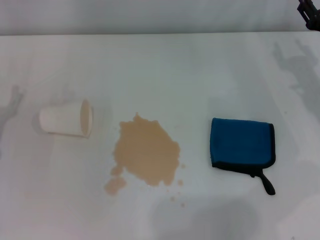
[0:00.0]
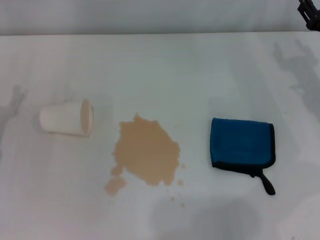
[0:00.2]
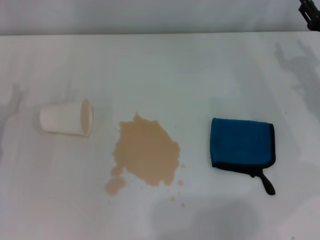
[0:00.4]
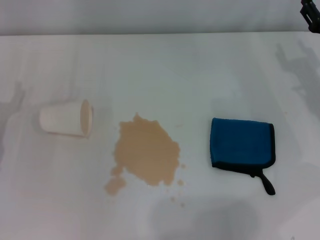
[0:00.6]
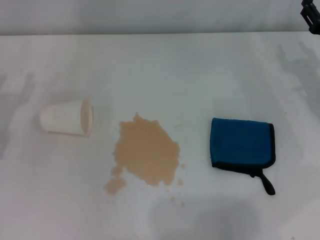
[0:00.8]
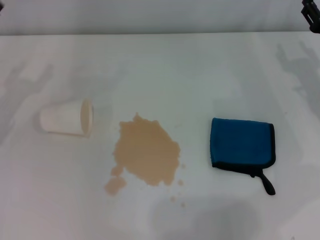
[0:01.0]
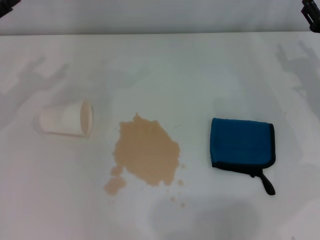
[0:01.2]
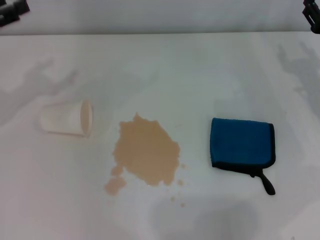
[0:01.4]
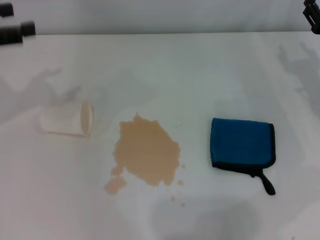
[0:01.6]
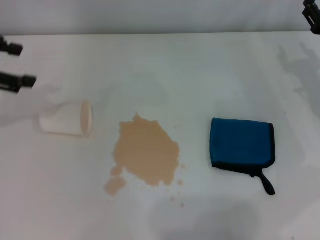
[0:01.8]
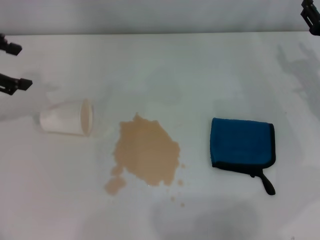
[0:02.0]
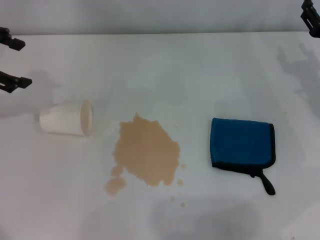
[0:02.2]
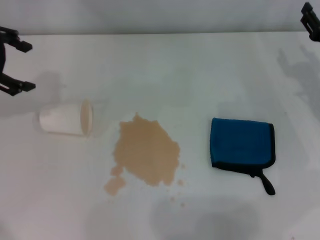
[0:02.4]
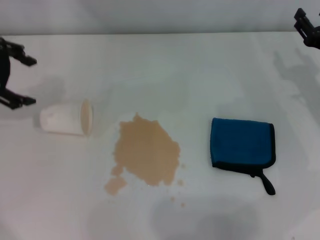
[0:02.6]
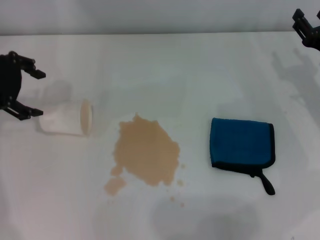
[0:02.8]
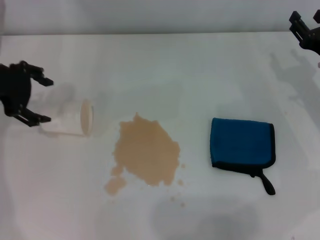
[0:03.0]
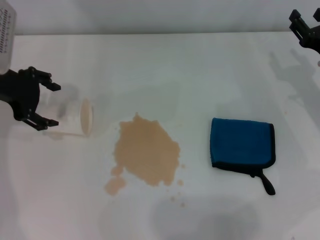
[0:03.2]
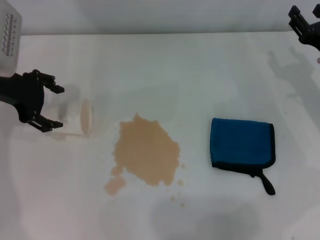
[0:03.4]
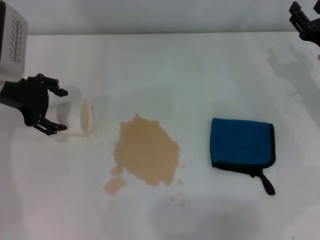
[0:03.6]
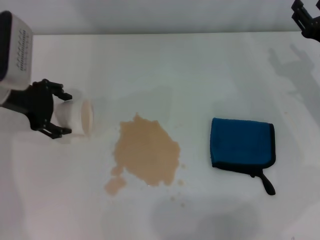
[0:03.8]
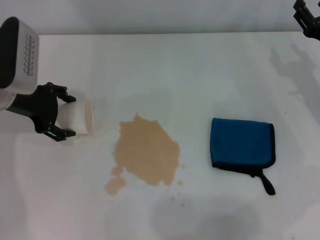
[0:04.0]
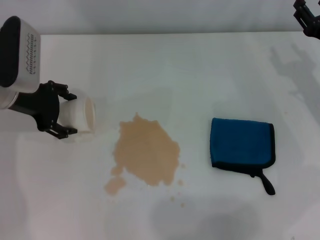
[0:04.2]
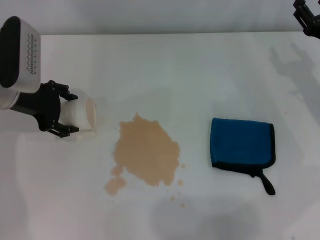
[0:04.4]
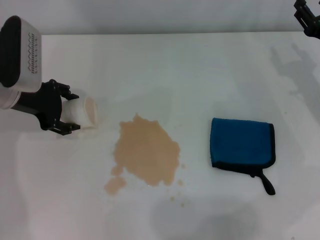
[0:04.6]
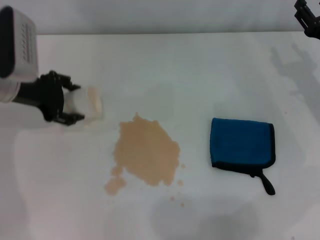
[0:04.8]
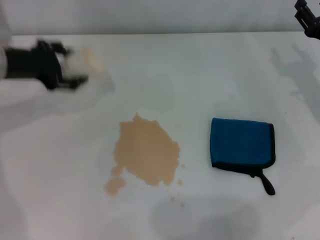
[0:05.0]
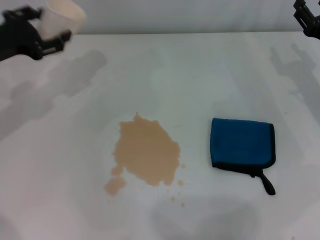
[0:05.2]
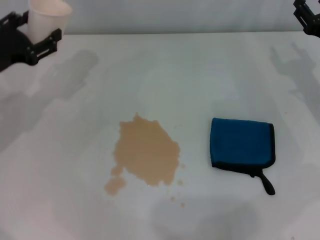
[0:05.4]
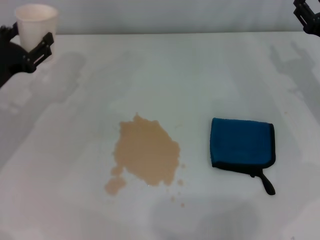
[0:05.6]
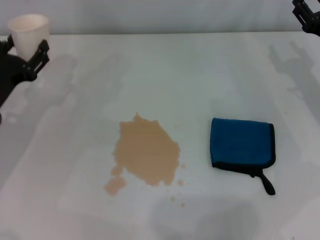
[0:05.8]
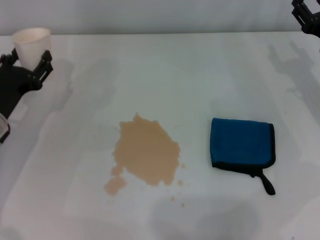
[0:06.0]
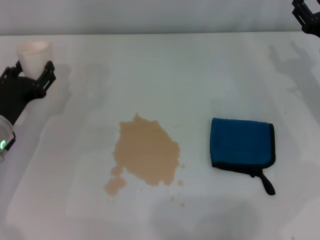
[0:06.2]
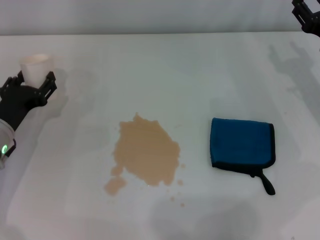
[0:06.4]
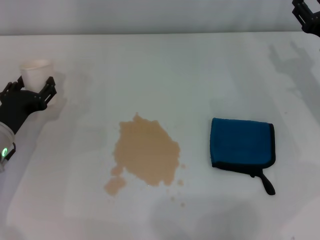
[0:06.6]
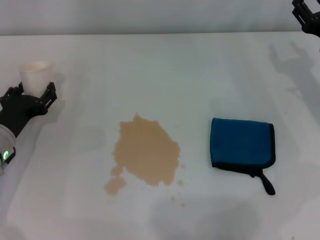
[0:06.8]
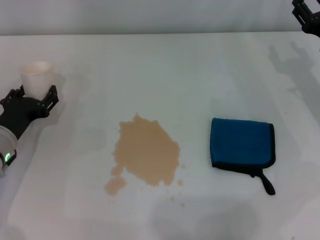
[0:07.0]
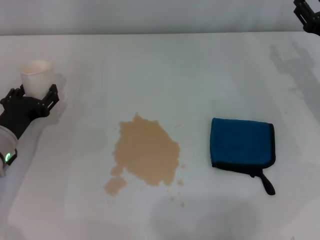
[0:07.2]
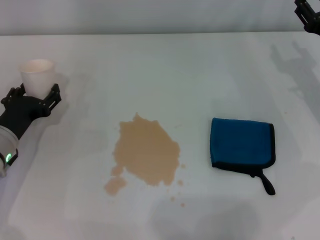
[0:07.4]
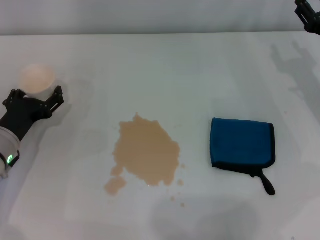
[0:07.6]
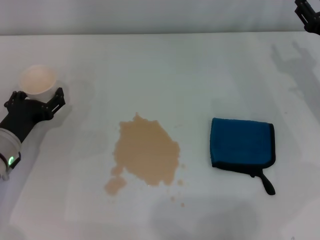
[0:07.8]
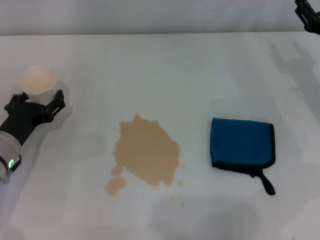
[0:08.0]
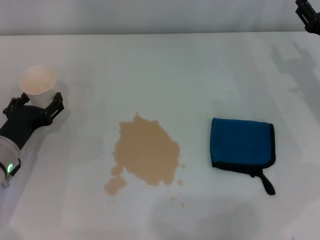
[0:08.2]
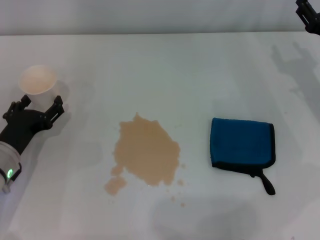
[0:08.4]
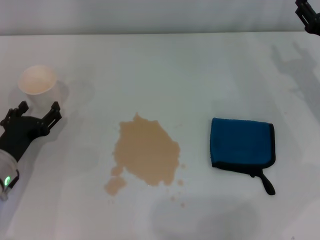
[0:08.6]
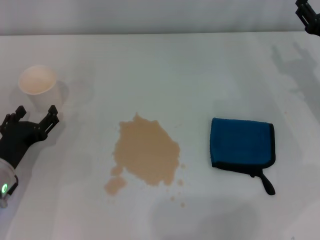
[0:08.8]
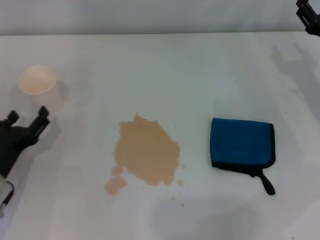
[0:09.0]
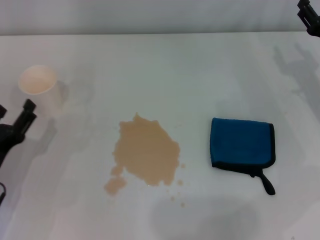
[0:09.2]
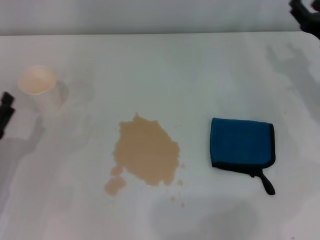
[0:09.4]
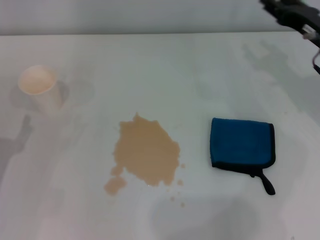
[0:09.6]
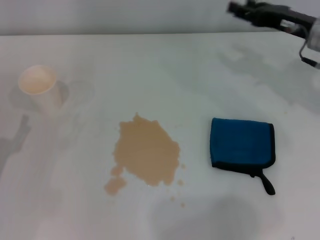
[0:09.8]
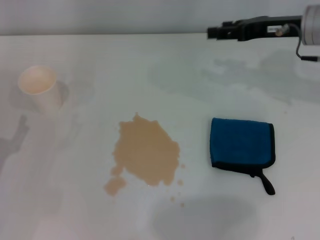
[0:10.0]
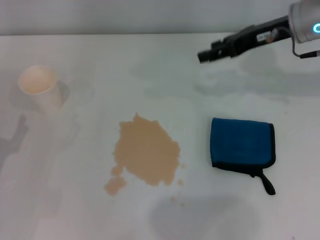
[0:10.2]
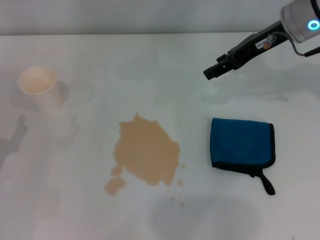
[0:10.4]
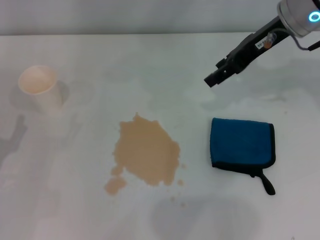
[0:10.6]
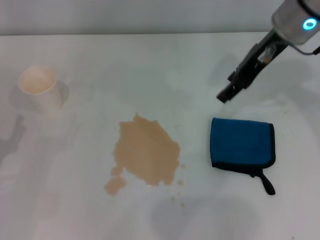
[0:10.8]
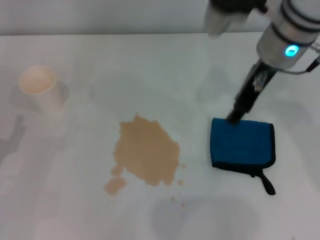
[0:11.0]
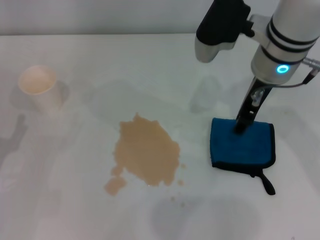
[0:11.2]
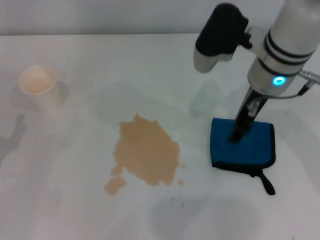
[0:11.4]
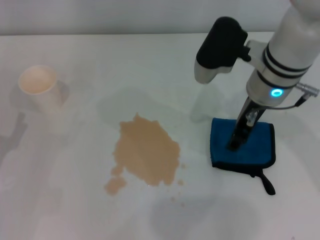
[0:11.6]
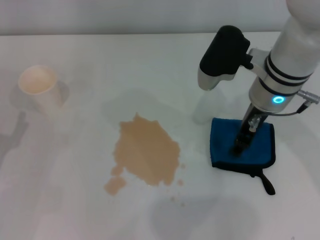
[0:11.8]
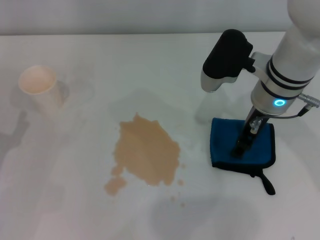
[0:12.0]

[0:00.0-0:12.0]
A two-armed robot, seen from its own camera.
Step, 0:00.0 to 0:04.6: Grasp the paper cup with the left gripper.
Step, 0:04.8 to 0:08.4: Stand the paper cup upright with the left gripper.
0:00.0 to 0:01.6: The left gripper heads upward and forward, covering approximately 20 cm.
0:01.6 to 0:03.0: The left gripper travels to the right by approximately 5 cm.
0:03.0 to 0:04.4: The left gripper travels downward by some 5 cm.
0:04.4 to 0:06.0: The left gripper shifts approximately 10 cm downward and backward, and closes its fingers.
0:06.0 to 0:07.6: The left gripper opens its fingers.
0:07.6 to 0:09.0: The left gripper moves backward, some 5 cm, and opens.
0:09.0 to 0:10.4: The left gripper shifts by some 5 cm; the right gripper travels upward, to the left and forward by some 15 cm.
0:10.4 to 0:12.0: The right gripper goes some 10 cm downward, to the left and backward.

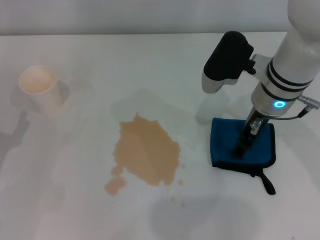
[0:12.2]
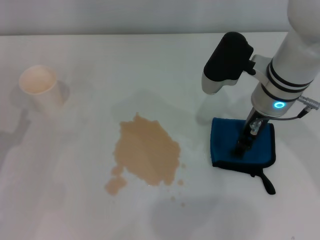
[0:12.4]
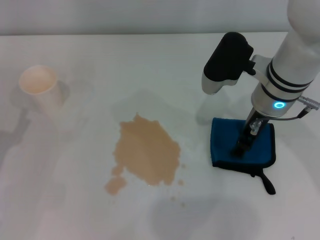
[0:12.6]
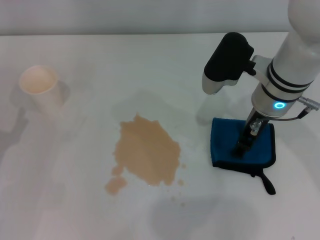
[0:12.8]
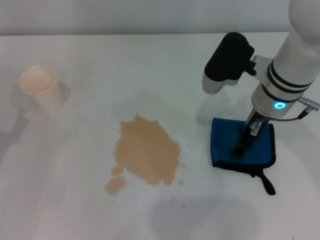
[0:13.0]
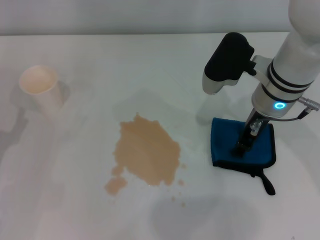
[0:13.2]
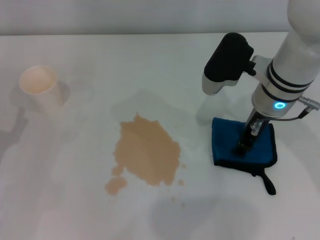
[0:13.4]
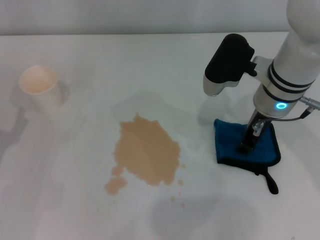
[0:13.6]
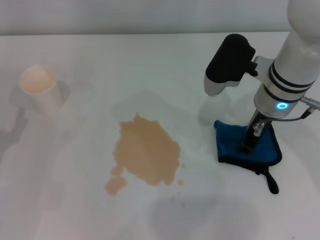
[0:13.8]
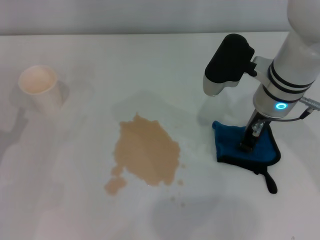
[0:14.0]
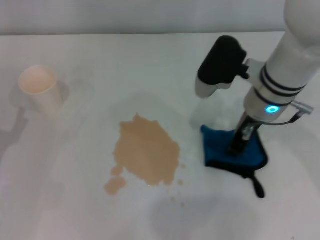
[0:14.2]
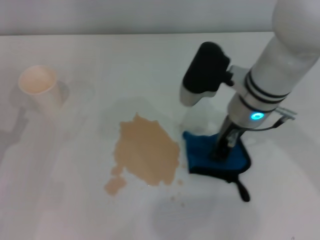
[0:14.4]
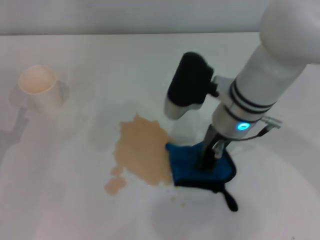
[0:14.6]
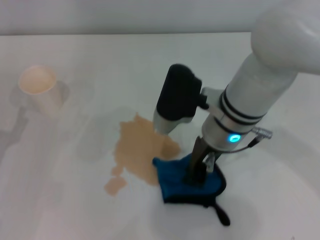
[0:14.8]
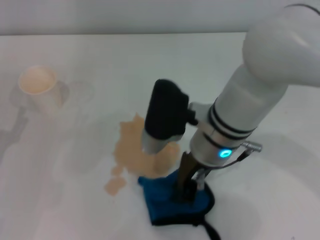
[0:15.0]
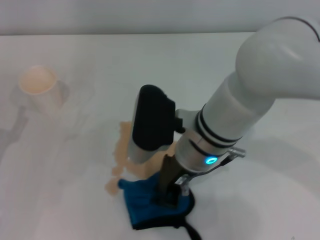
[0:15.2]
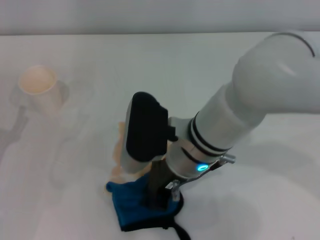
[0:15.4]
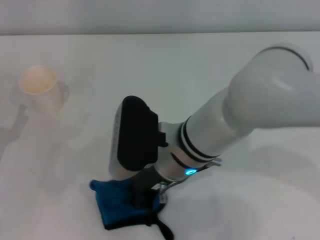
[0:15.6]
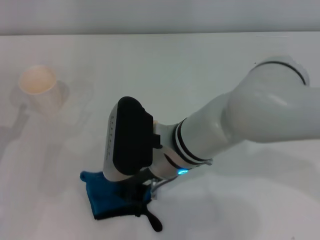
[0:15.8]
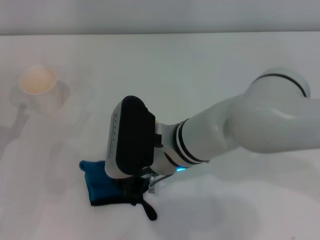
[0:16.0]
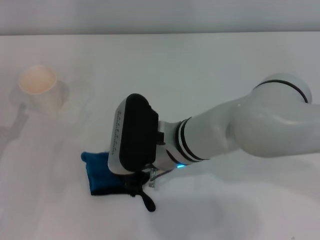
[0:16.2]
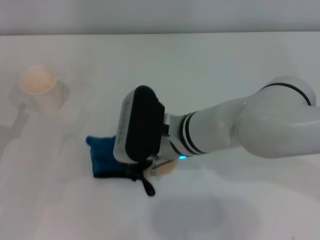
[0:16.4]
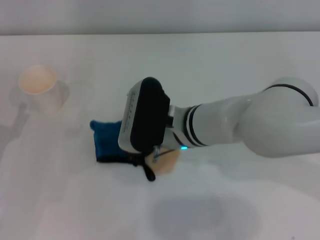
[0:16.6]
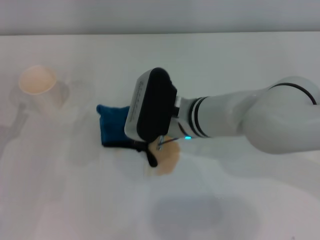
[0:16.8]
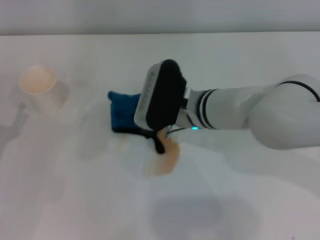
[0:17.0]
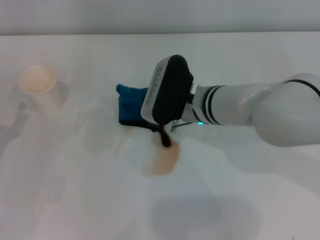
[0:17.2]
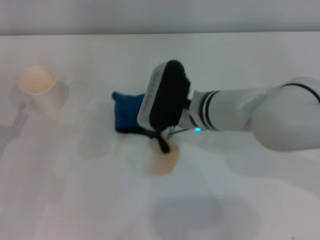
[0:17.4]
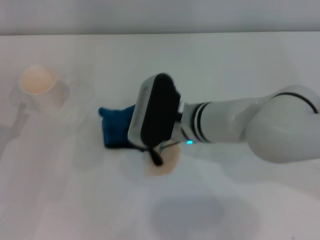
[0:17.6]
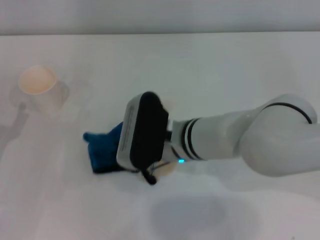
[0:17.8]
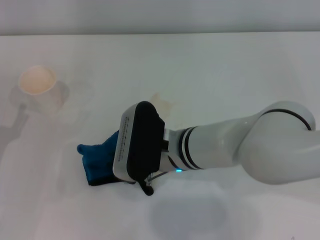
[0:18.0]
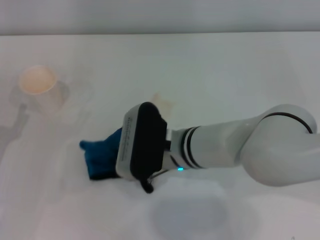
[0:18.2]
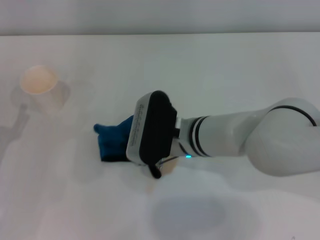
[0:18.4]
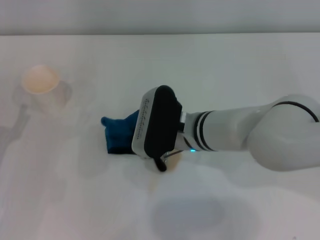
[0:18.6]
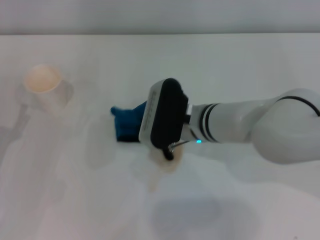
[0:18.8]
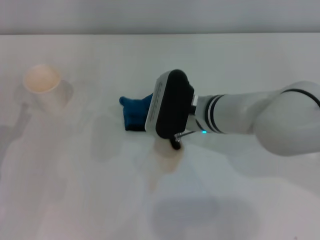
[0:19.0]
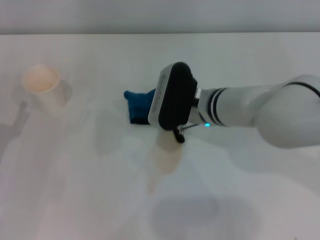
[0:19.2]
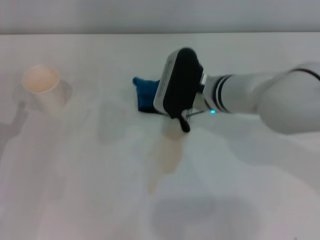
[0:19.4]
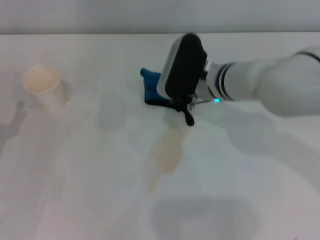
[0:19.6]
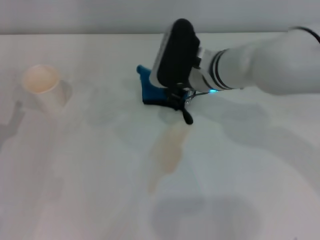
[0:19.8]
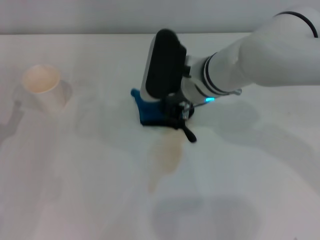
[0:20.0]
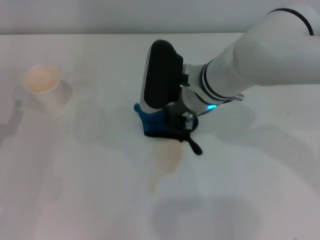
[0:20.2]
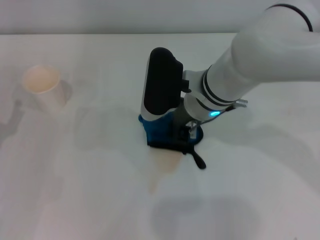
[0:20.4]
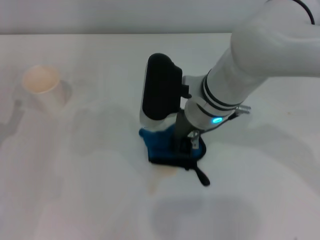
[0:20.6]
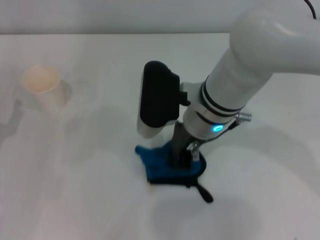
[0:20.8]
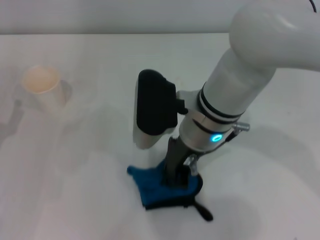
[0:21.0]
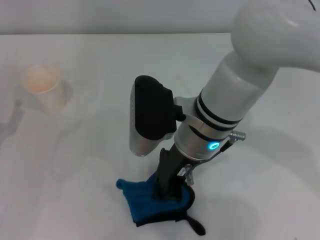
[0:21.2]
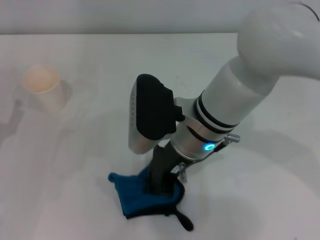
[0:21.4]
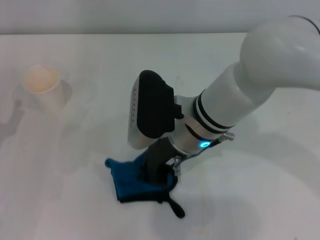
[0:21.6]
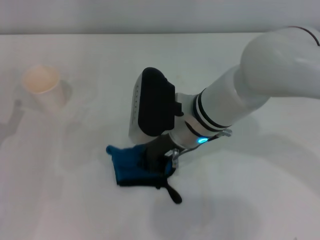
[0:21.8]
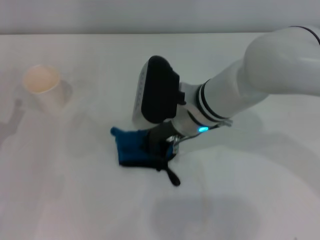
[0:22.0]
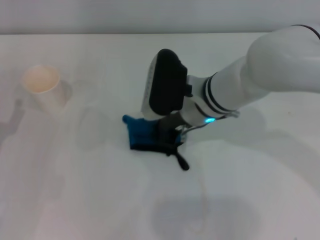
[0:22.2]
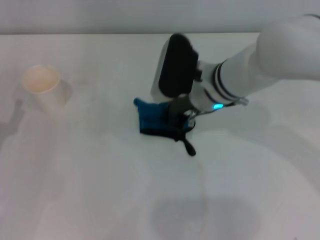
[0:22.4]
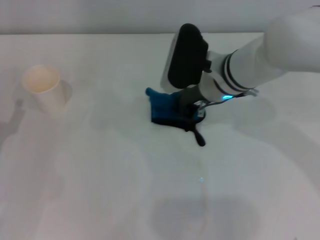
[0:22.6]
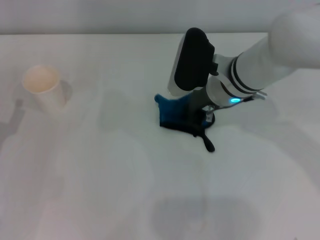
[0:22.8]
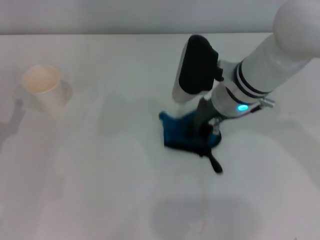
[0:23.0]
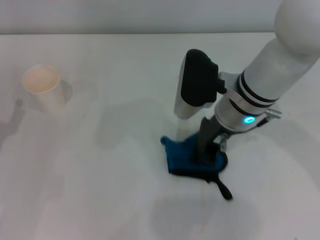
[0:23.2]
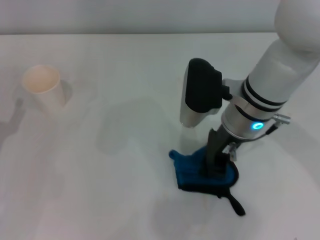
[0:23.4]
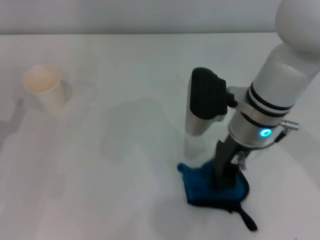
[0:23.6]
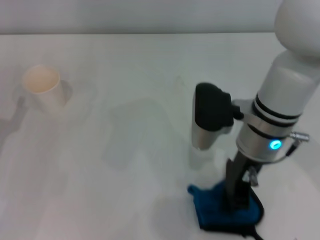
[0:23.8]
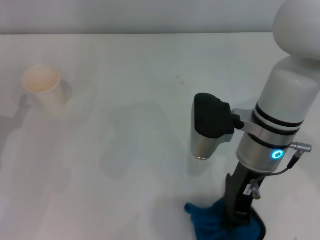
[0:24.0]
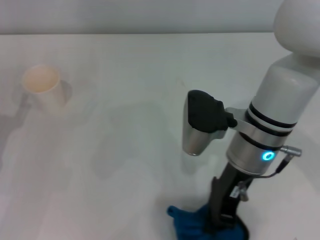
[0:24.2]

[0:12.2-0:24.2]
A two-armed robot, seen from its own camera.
0:12.2 to 0:13.8: The right gripper closes.
0:13.8 to 0:15.2: The right gripper heads to the left and backward, covering approximately 15 cm.
0:16.6 to 0:18.2: The grippers make only small movements.
0:18.2 to 0:19.8: The right gripper travels forward by about 10 cm.
0:19.8 to 0:21.2: The right gripper heads backward, covering approximately 10 cm.
0:21.2 to 0:22.6: The right gripper moves forward and to the right, some 10 cm.
0:22.6 to 0:24.2: The right gripper moves backward, approximately 10 cm.
